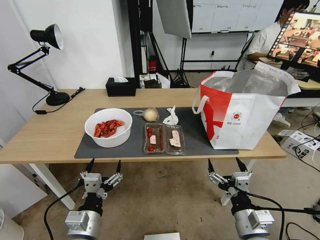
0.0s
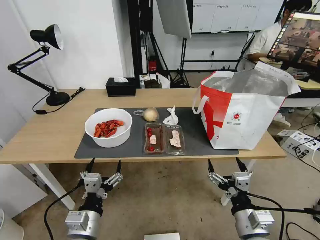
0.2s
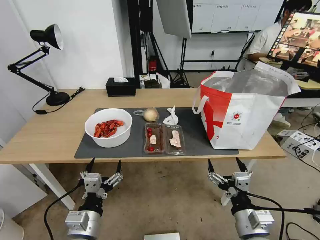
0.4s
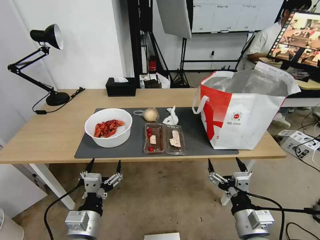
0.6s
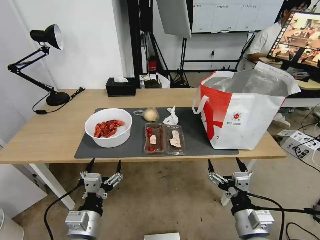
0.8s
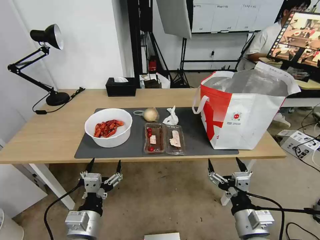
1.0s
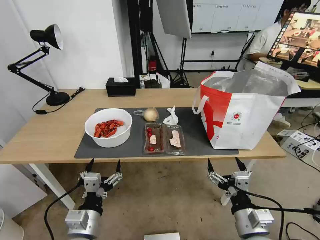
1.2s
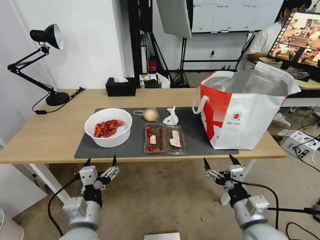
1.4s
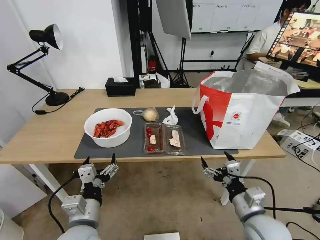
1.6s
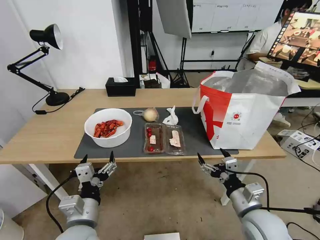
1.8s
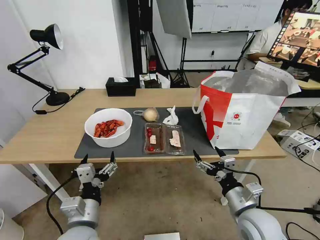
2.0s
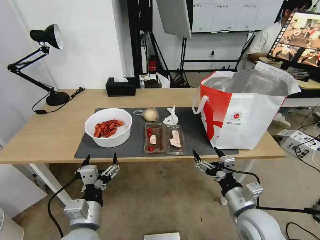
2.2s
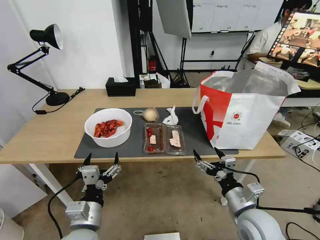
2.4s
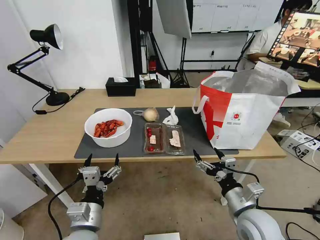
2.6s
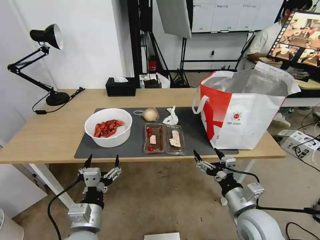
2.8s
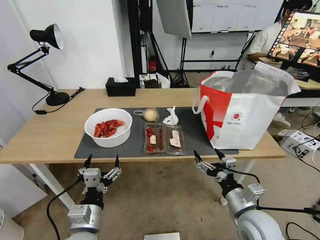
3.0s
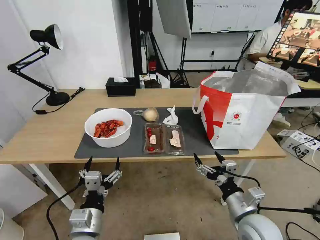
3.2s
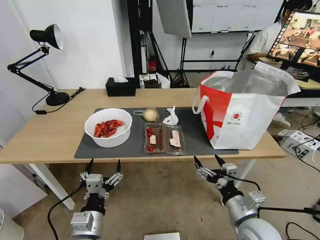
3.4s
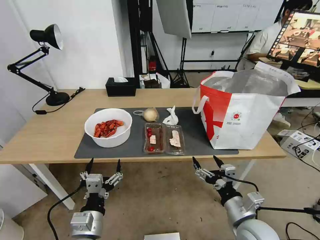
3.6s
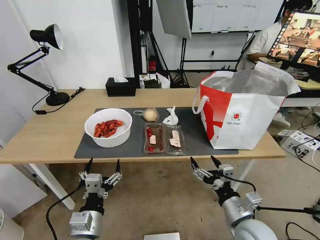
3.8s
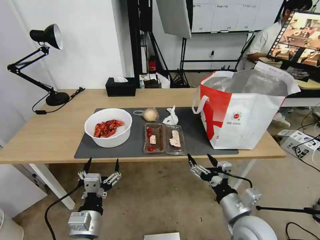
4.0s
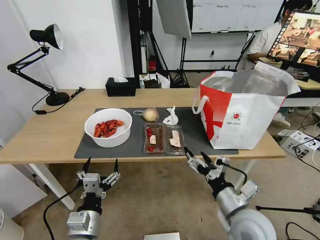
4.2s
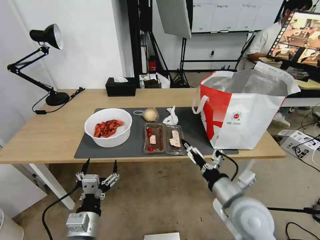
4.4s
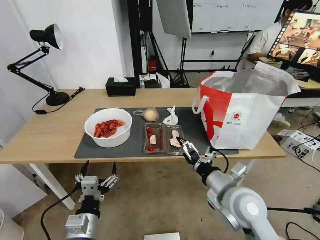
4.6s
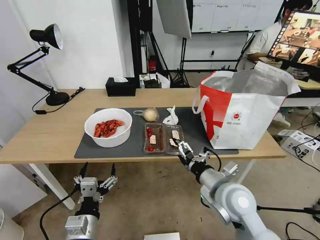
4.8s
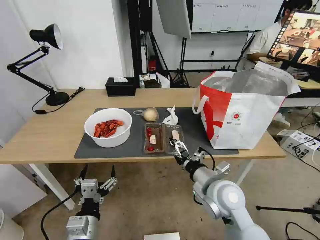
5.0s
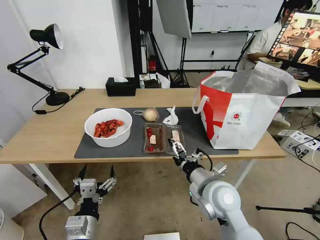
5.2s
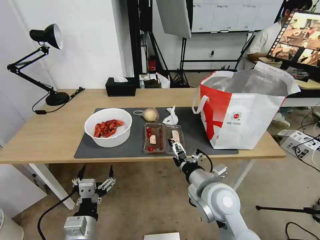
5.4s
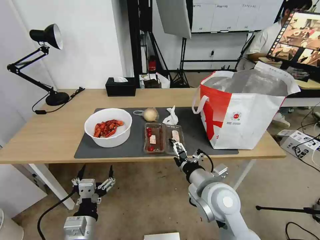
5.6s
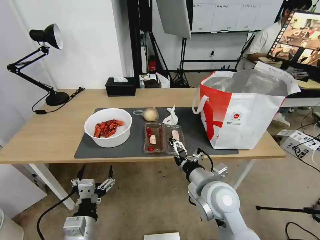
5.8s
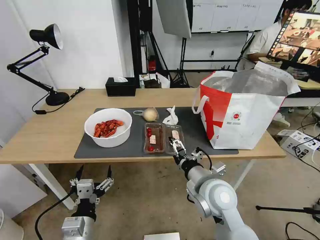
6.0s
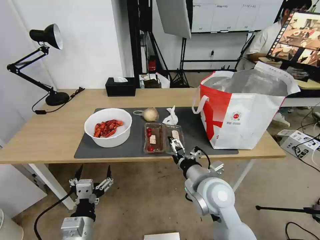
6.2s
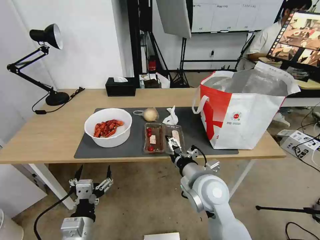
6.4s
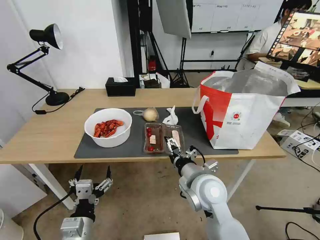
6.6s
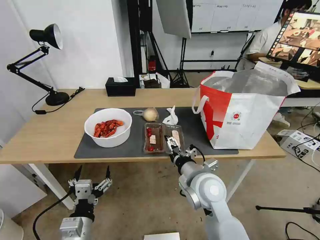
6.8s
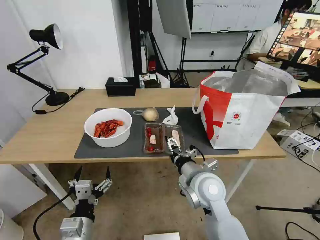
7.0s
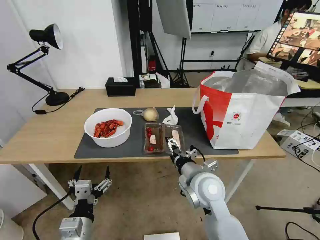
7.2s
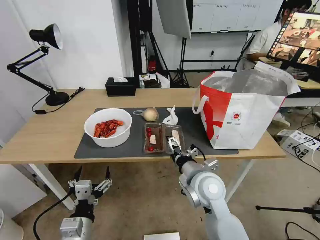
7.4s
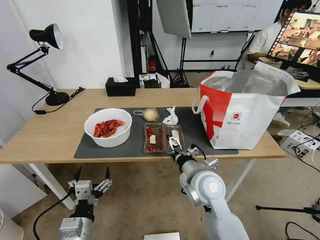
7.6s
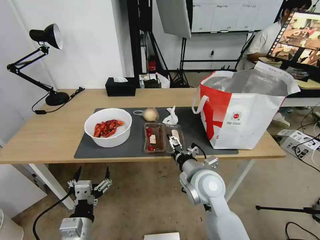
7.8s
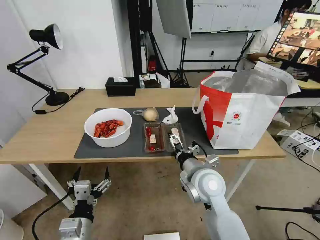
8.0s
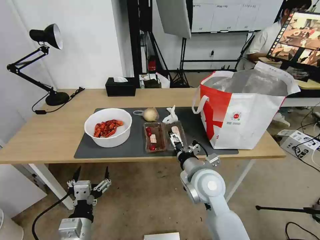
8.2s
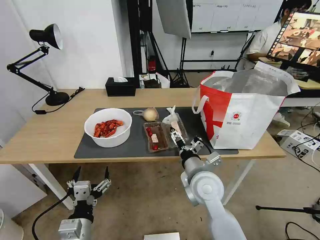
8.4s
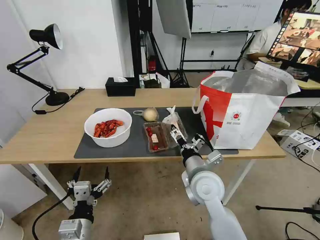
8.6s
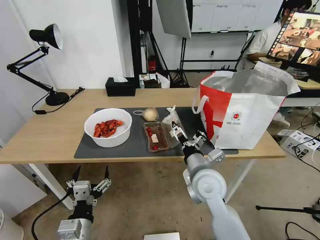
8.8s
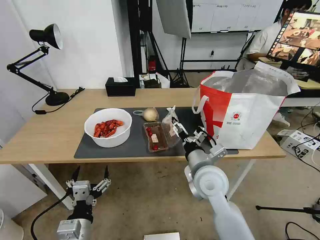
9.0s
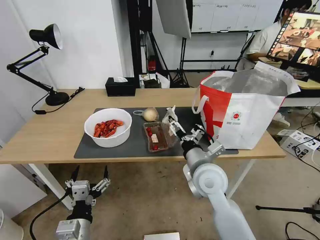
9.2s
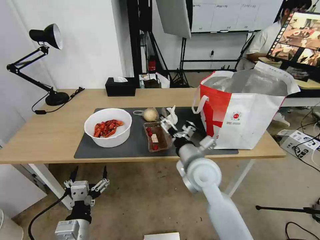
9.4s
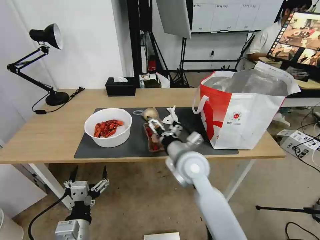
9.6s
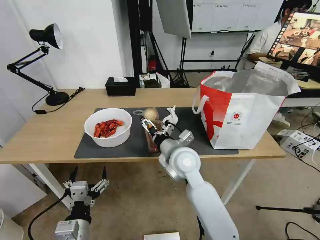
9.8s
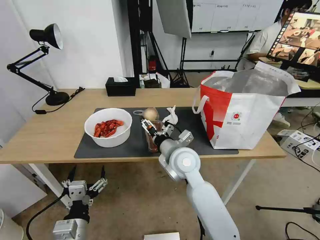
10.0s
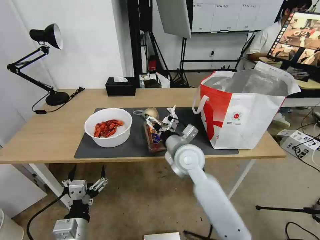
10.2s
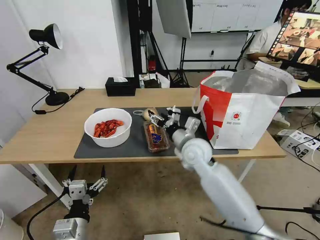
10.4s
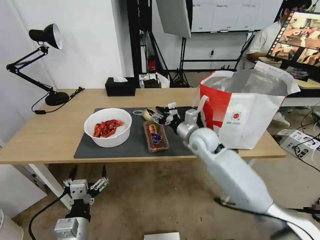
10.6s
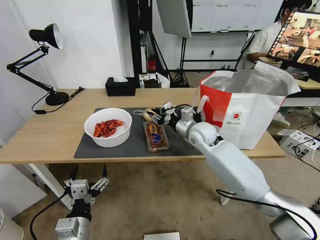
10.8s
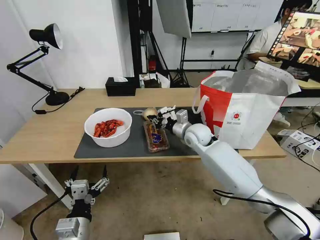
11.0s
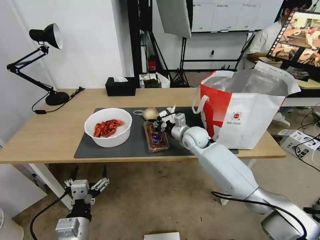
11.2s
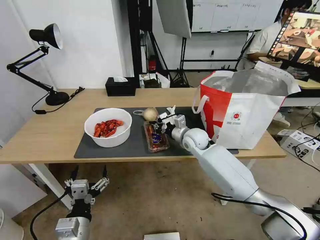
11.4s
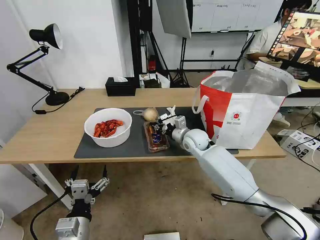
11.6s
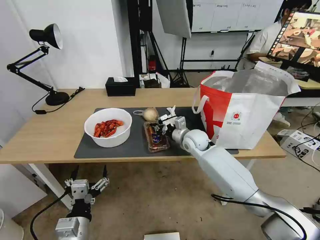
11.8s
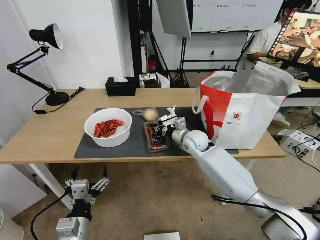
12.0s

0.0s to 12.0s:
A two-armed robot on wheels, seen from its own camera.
Task of the whole recording: Pick up the trash from the table and place it into the takeout bag.
1.6s to 3.0s: The grippers make only small movements.
3.0s to 4.4s: The right gripper goes approximately 5 cm upward.
4.4s to 6.0s: The right gripper is displaced to the left by some 5 cm.
6.0s to 7.6s: The grippers move only a little.
9.0s to 10.4s: The right gripper shifts some 10 cm forward.
10.4s to 12.0s: The right gripper shifts about 10 cm forward and downward, and closes.

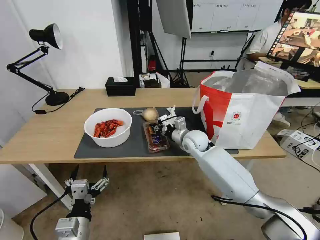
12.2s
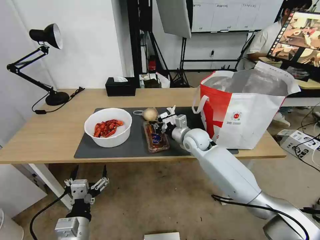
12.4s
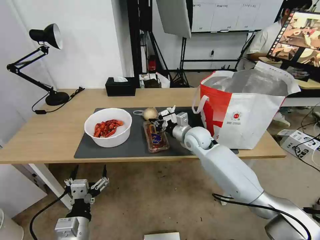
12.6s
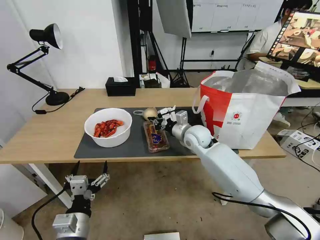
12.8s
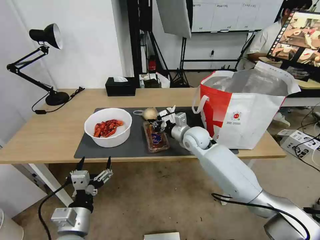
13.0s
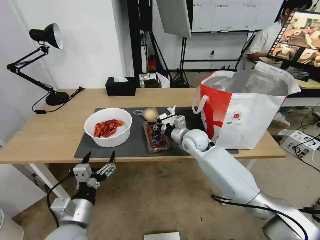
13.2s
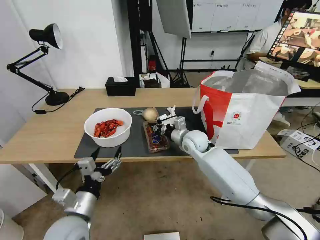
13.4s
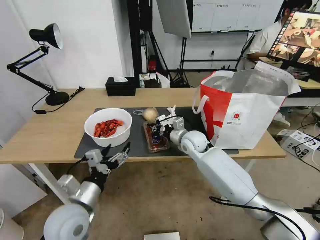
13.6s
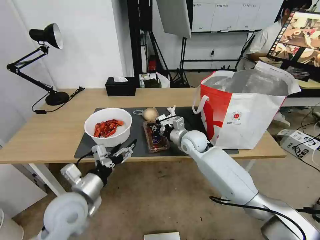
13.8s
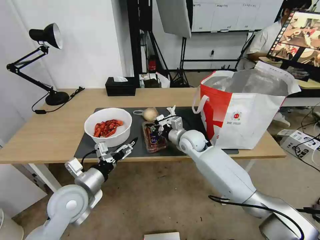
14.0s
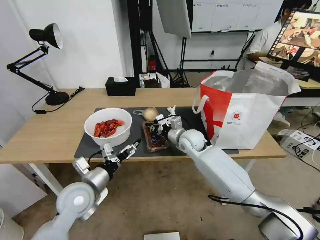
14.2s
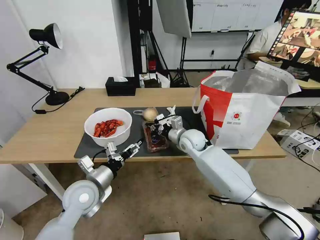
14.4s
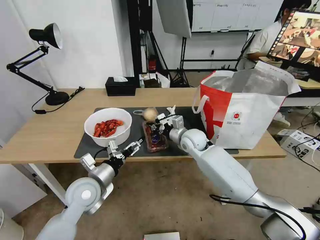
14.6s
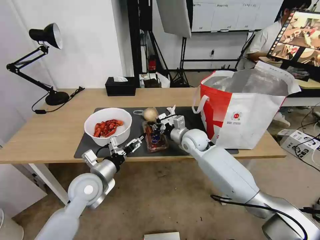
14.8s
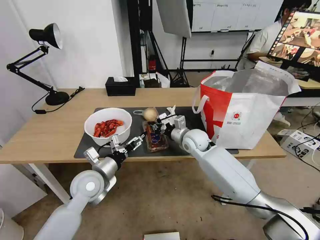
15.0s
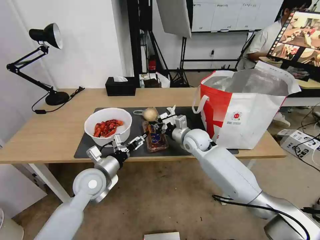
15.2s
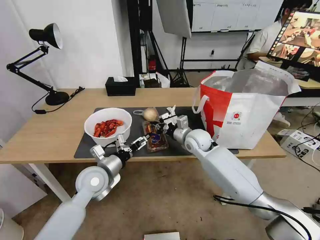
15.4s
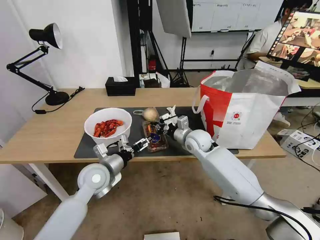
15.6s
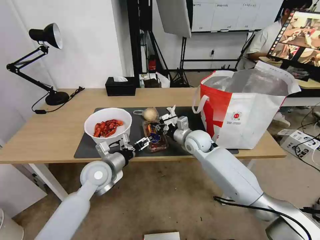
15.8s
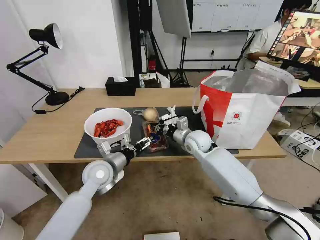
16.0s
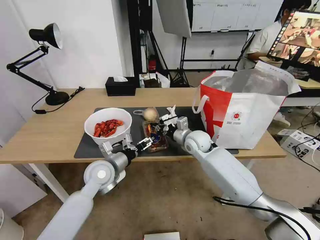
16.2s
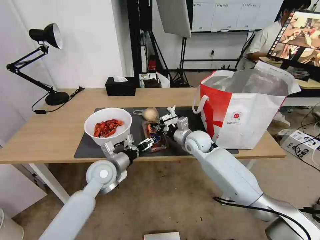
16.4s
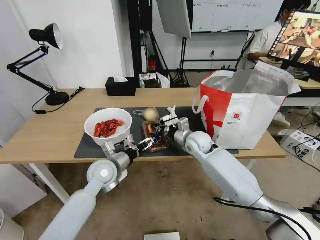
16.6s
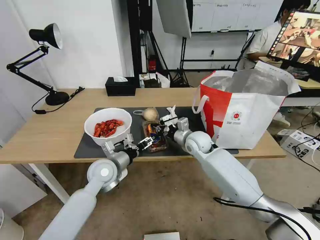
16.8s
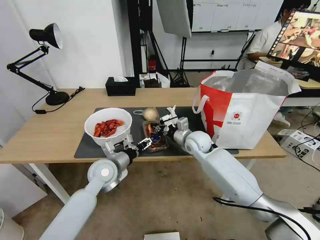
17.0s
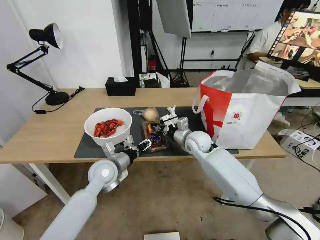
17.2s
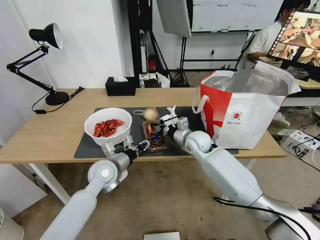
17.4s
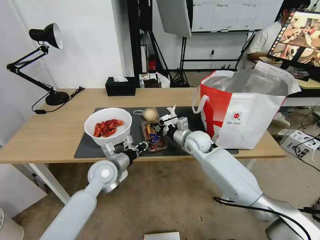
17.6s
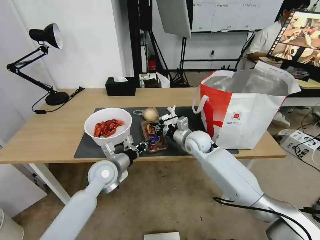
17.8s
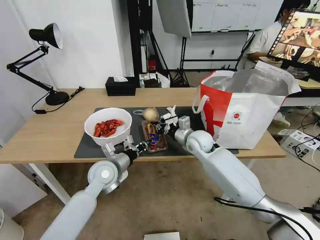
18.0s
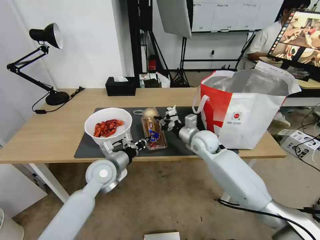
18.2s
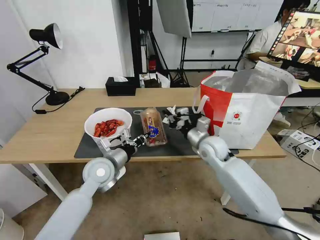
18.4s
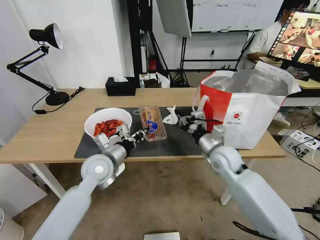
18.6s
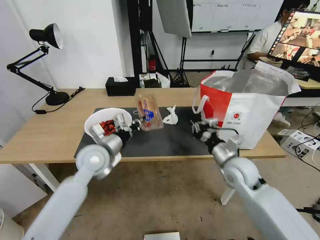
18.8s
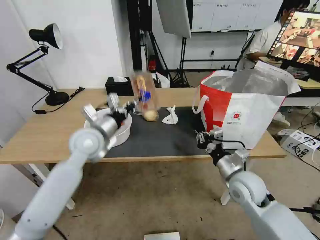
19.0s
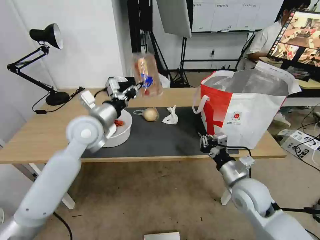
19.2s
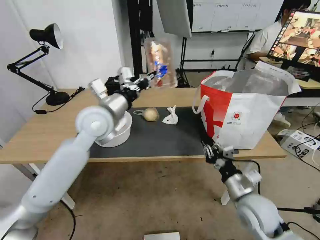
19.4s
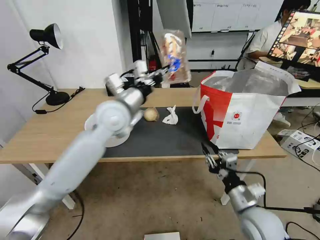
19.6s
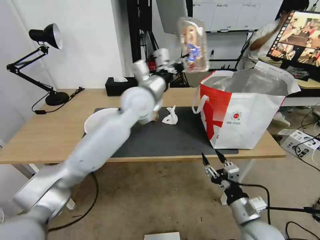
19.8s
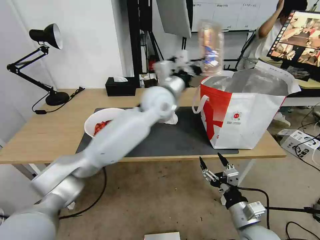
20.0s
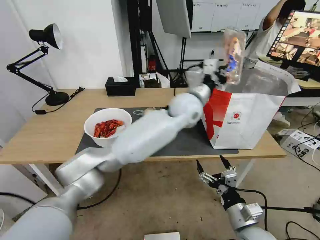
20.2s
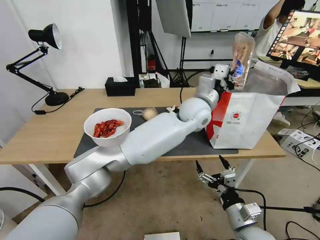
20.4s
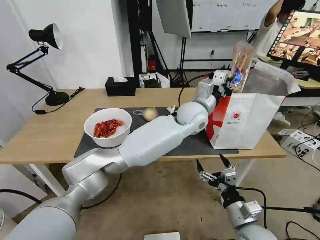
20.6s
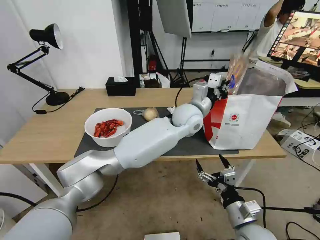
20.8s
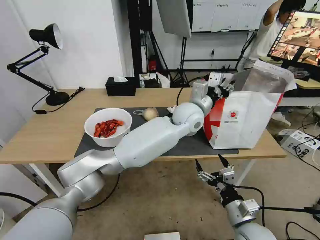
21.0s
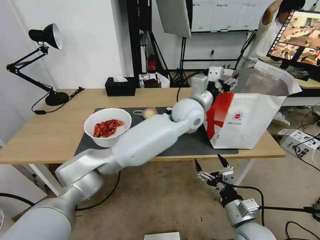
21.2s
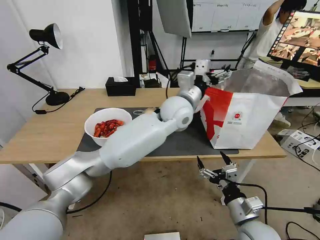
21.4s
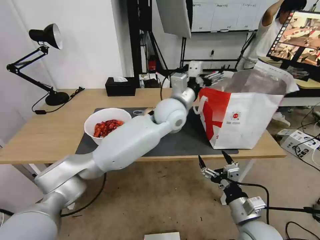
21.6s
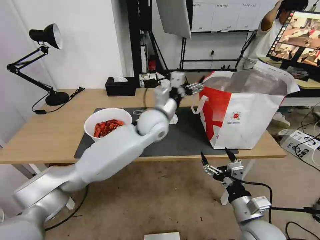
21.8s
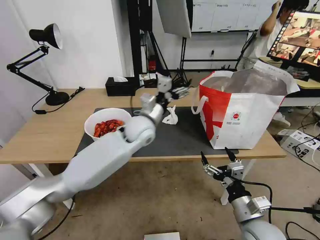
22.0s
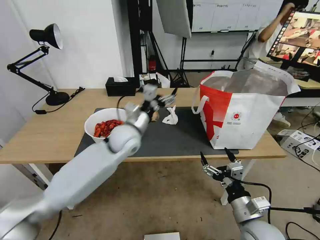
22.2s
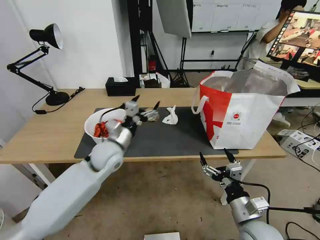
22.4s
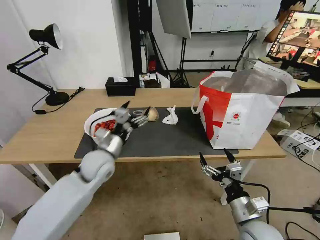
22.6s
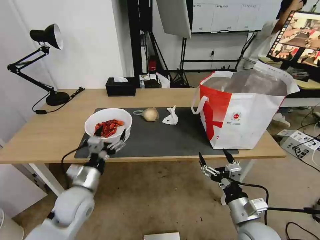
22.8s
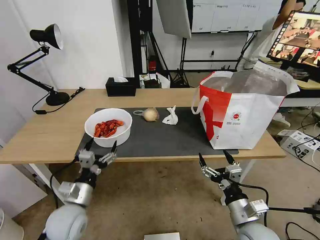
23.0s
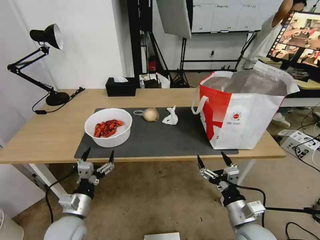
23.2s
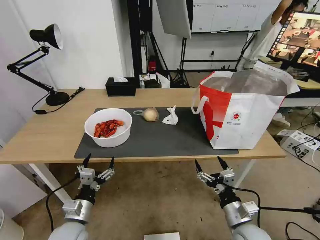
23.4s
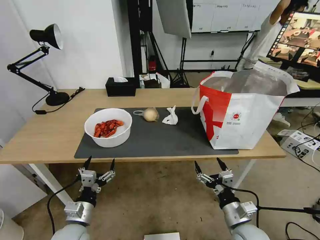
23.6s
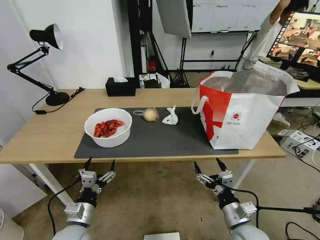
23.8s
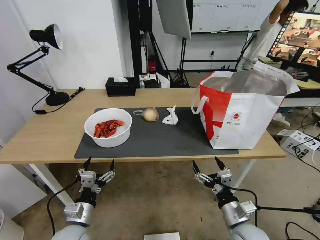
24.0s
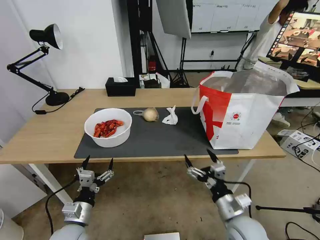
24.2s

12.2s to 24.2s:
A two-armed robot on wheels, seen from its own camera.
Task of the whole recording: Pick up the trash from the table and place it into the takeout bag.
12.2s to 13.8s: The left gripper is displaced forward and upward by approximately 15 cm.
13.8s to 15.2s: The left gripper goes about 10 cm forward.
15.2s to 16.6s: The grippers stay close to where they were, moving slightly.
16.6s to 18.2s: The left gripper closes up.
18.2s to 19.8s: The left gripper is displaced upward, to the right and forward by approximately 25 cm; the right gripper moves backward, approximately 30 cm, and opens up.
19.8s to 21.2s: The left gripper heads to the right, covering some 15 cm, and opens up. The right gripper opens up.
21.2s to 22.6s: The left gripper shifts about 35 cm to the left, downward and backward.
22.6s to 24.2s: The left gripper travels backward and downward by about 20 cm.
